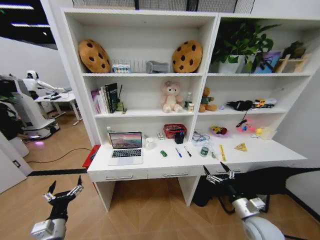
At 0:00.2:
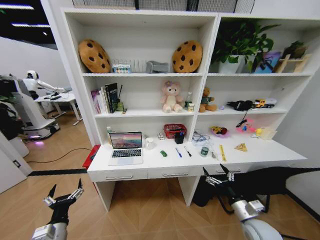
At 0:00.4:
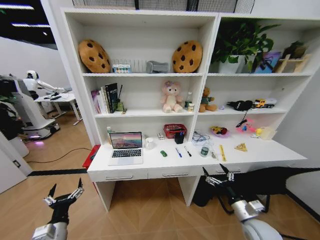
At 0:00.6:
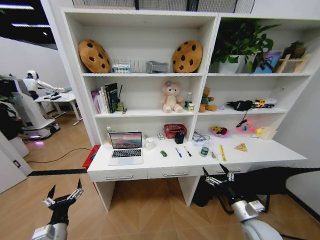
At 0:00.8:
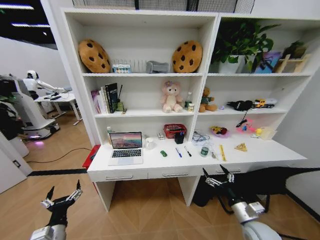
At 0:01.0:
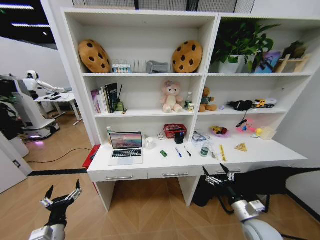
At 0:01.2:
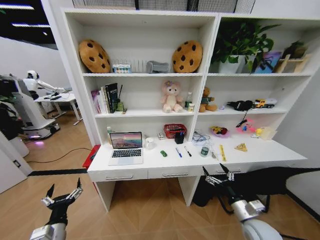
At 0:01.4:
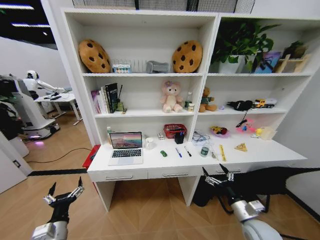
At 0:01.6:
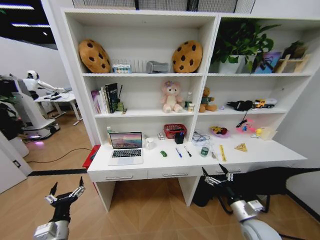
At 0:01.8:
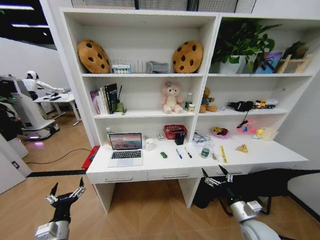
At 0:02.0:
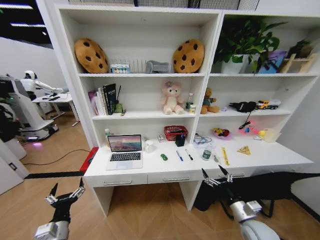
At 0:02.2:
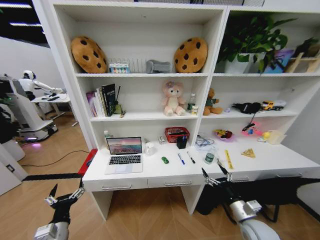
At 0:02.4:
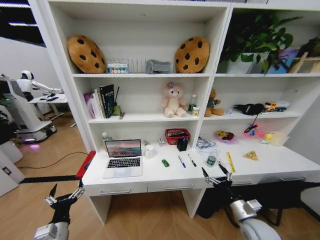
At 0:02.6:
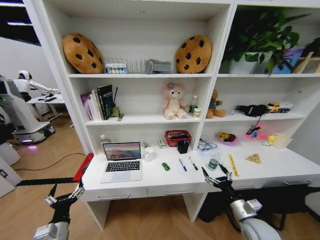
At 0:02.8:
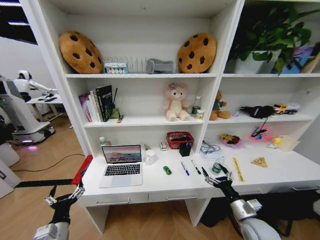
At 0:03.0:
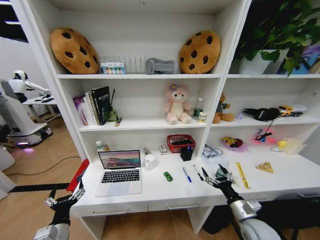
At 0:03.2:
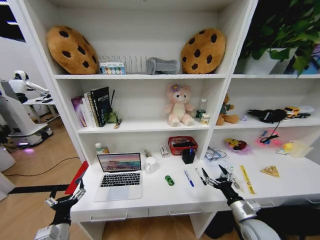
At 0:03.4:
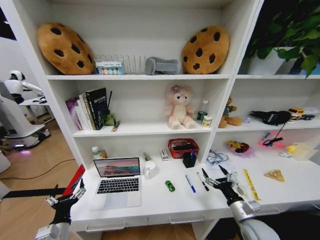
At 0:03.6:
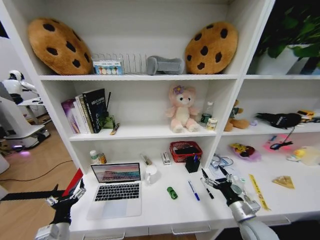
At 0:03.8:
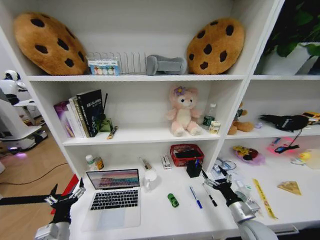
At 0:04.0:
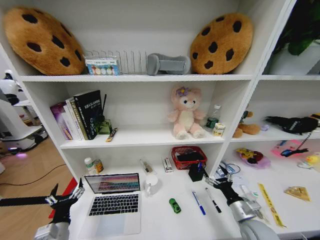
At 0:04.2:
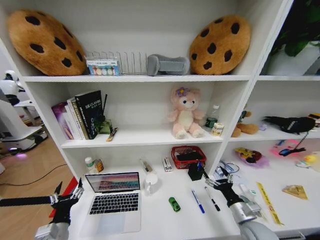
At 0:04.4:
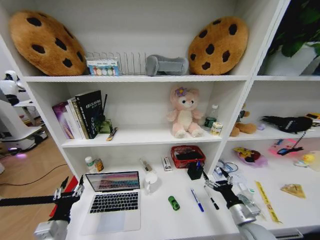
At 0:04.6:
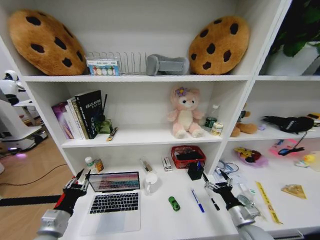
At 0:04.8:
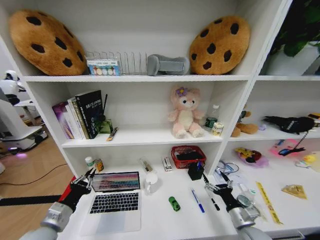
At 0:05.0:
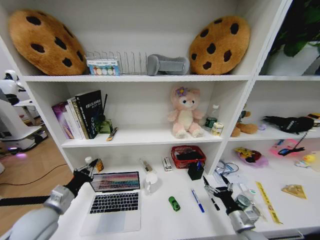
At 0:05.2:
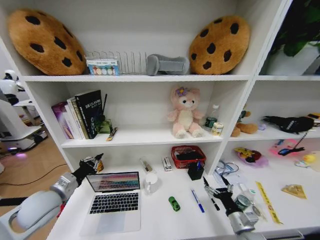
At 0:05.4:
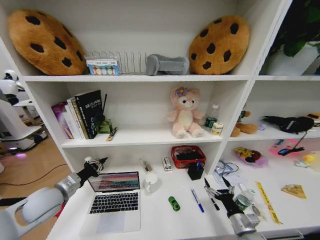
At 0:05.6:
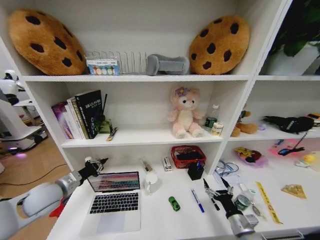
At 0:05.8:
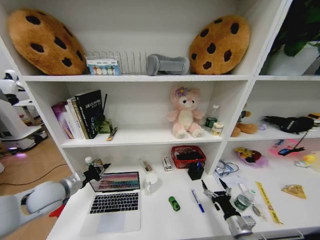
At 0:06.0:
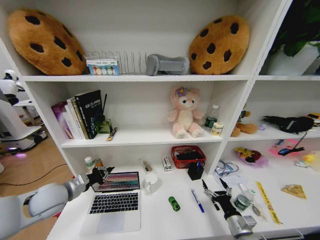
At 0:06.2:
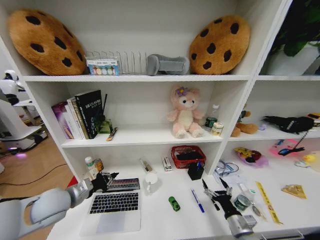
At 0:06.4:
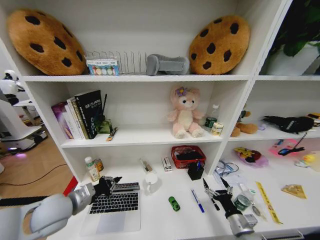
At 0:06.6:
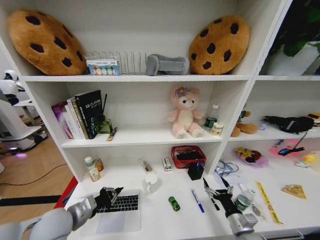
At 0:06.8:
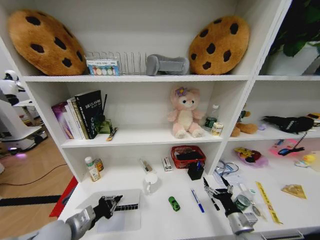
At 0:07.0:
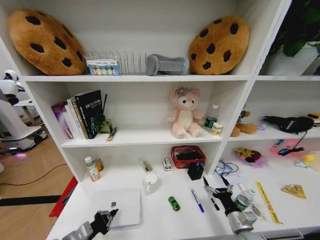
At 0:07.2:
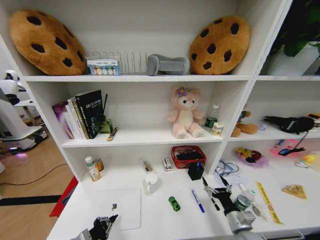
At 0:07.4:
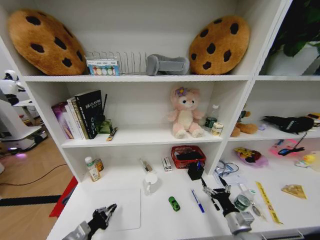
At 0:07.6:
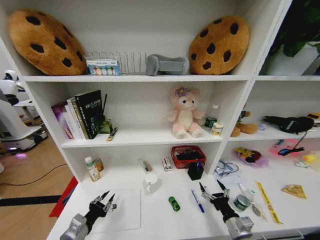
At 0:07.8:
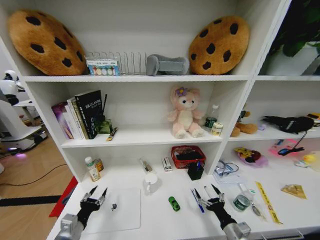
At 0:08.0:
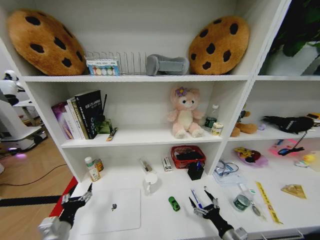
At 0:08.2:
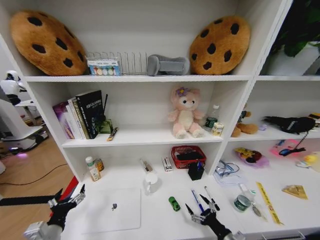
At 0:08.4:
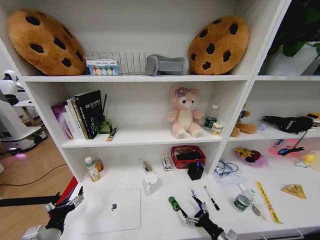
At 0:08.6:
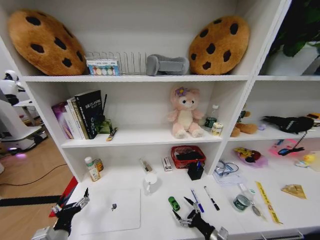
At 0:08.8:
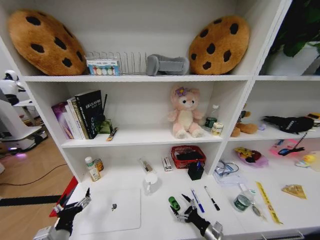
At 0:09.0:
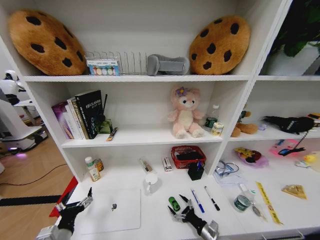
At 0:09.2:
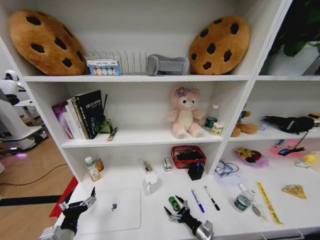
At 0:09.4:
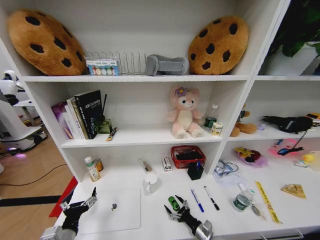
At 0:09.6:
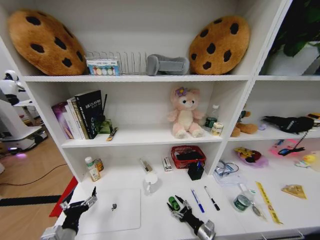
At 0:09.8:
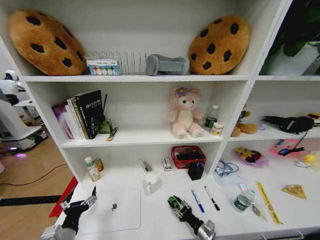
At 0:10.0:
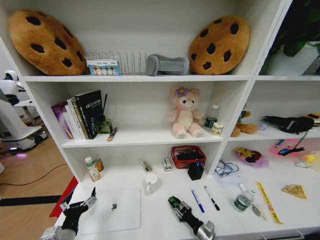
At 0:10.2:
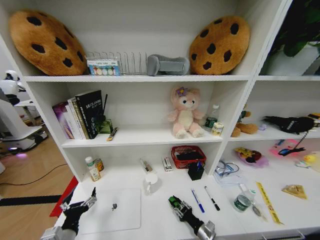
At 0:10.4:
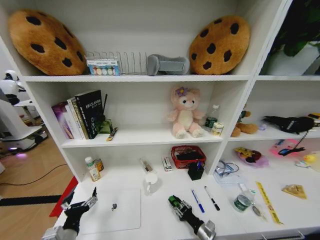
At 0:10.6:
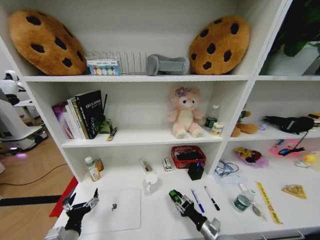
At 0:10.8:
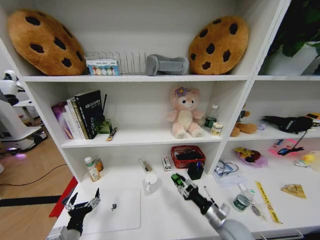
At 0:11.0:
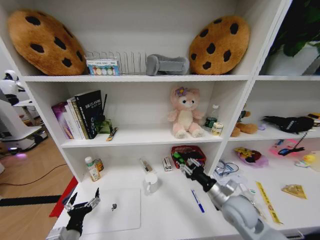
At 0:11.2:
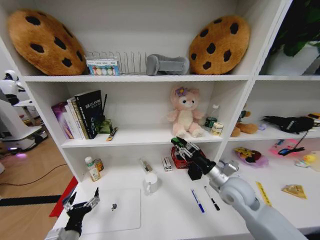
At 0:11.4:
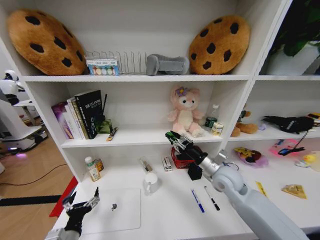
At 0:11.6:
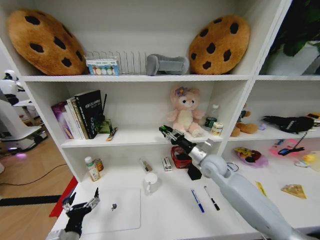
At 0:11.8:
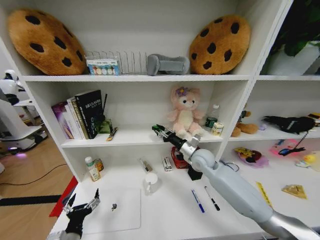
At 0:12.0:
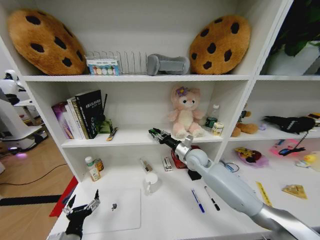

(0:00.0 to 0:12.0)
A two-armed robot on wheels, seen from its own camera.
Task of the whole recording: Organize the objects on the table.
0:03.0 - 0:04.4: The left gripper closes its fingers.
0:04.4 - 0:06.0: The left gripper goes some 15 cm forward and upward, and closes.
0:06.0 - 0:07.6: The left gripper heads backward and downward, covering roughly 15 cm.
0:07.6 - 0:09.0: The right gripper is displaced downward by approximately 10 cm. Meanwhile the left gripper opens its fingers.
0:09.0 - 0:10.4: The right gripper closes up.
0:10.4 - 0:12.0: The right gripper shifts some 40 cm forward and upward.

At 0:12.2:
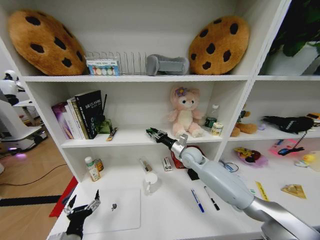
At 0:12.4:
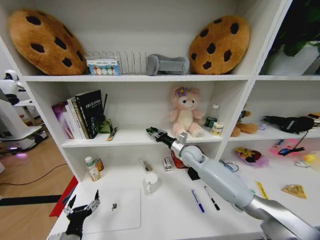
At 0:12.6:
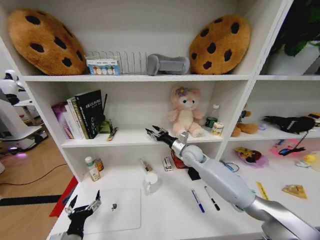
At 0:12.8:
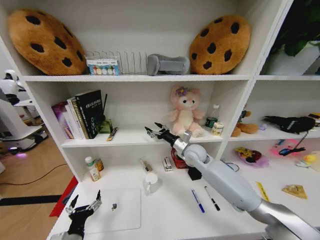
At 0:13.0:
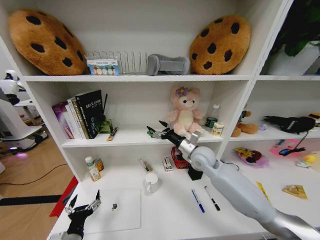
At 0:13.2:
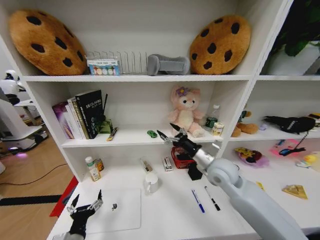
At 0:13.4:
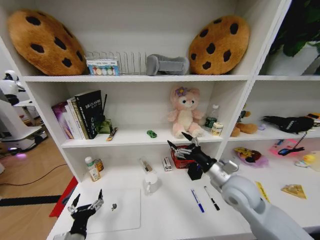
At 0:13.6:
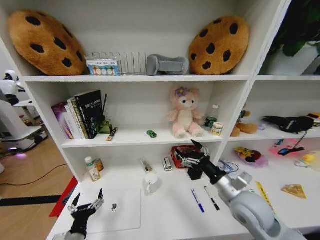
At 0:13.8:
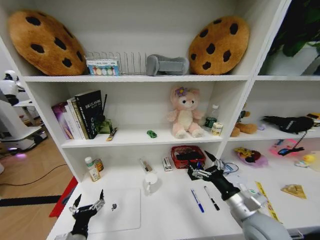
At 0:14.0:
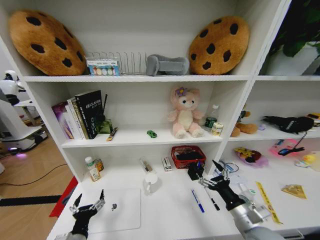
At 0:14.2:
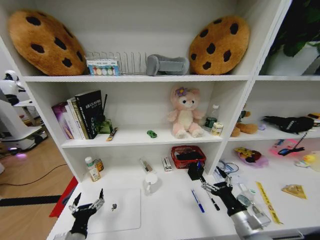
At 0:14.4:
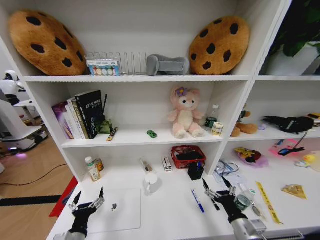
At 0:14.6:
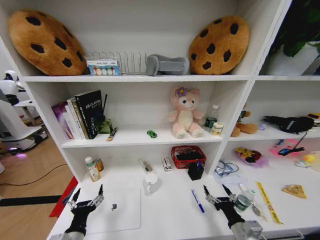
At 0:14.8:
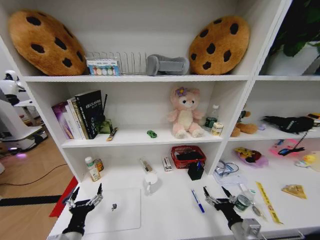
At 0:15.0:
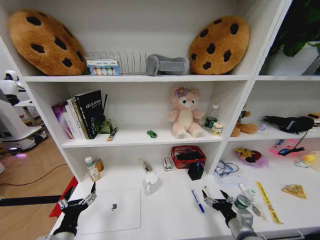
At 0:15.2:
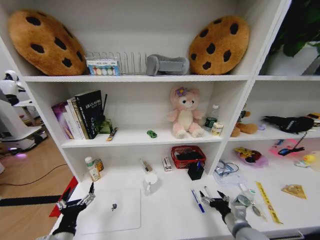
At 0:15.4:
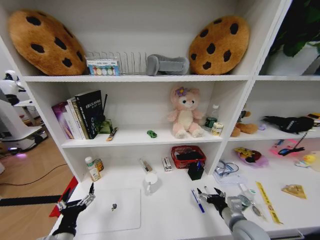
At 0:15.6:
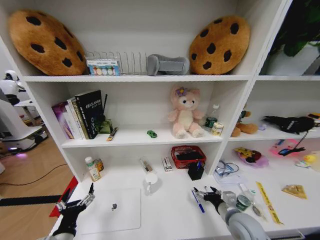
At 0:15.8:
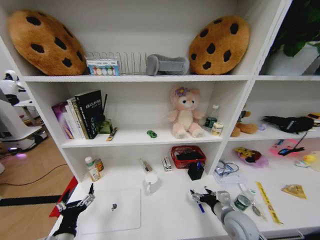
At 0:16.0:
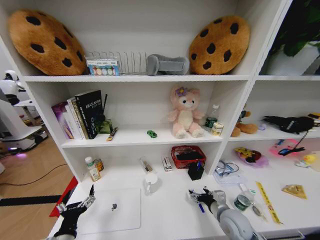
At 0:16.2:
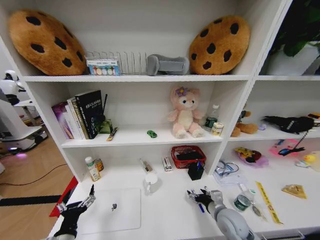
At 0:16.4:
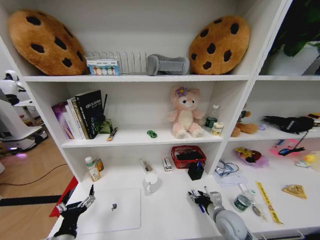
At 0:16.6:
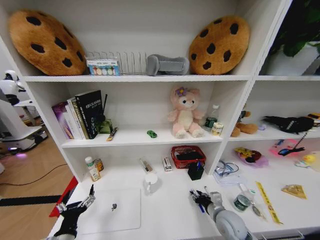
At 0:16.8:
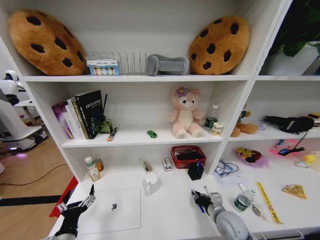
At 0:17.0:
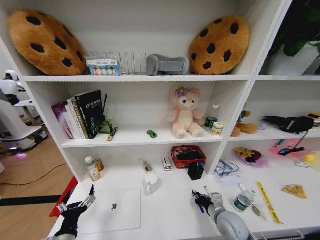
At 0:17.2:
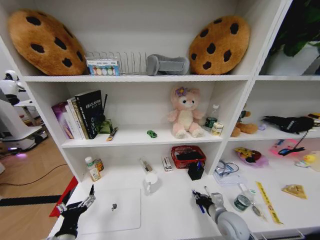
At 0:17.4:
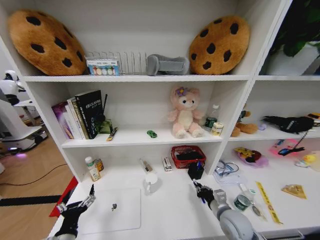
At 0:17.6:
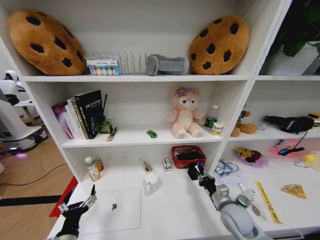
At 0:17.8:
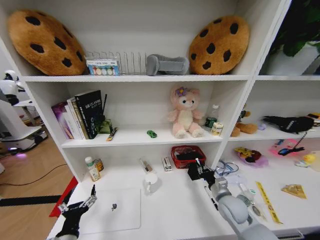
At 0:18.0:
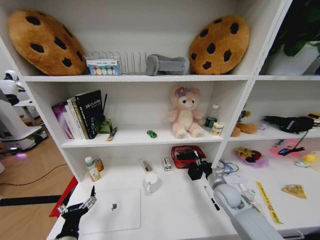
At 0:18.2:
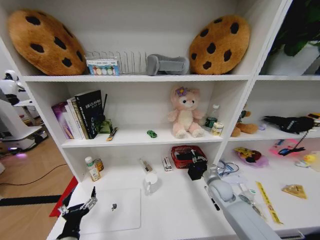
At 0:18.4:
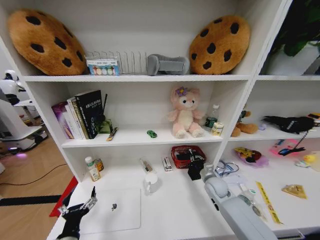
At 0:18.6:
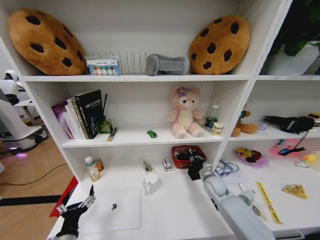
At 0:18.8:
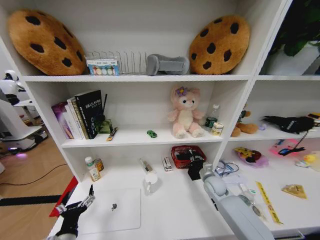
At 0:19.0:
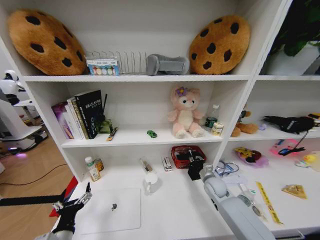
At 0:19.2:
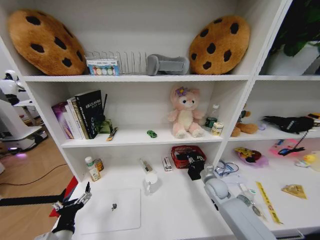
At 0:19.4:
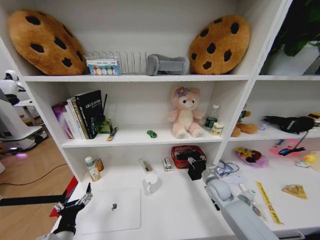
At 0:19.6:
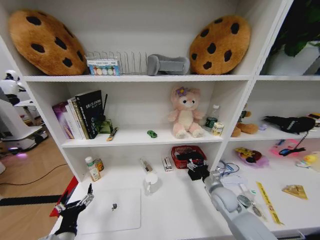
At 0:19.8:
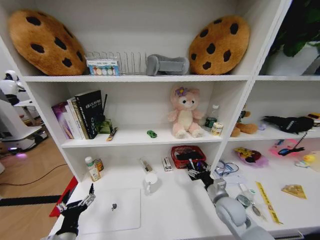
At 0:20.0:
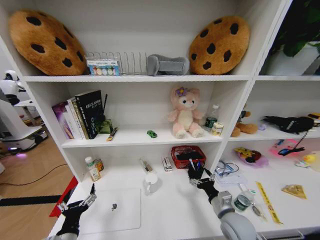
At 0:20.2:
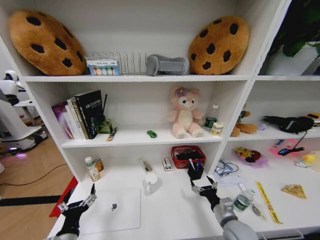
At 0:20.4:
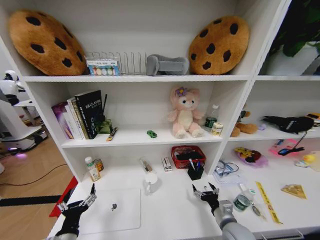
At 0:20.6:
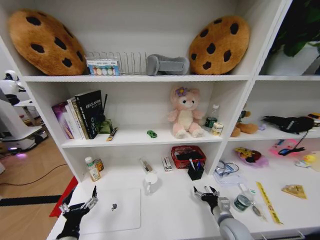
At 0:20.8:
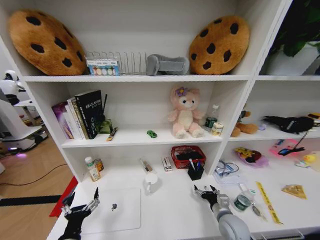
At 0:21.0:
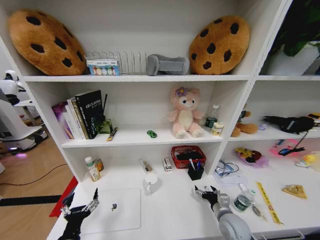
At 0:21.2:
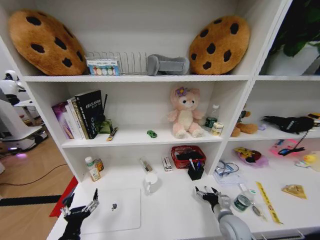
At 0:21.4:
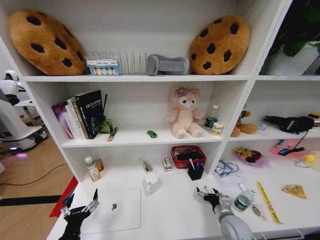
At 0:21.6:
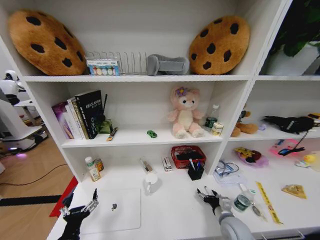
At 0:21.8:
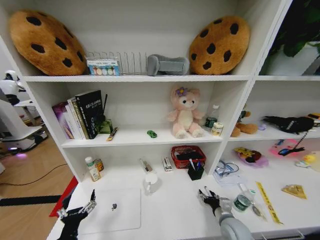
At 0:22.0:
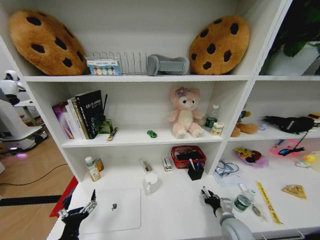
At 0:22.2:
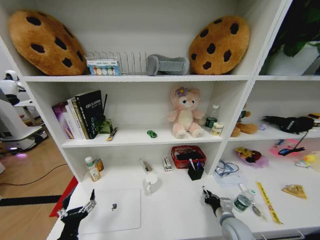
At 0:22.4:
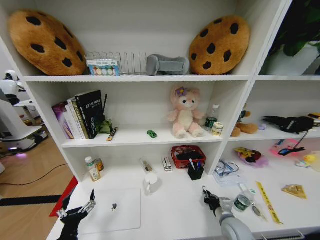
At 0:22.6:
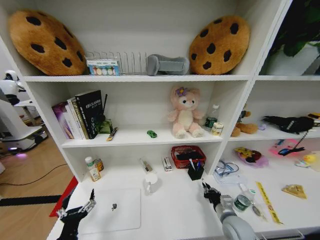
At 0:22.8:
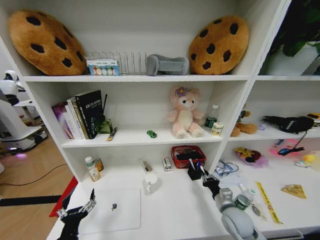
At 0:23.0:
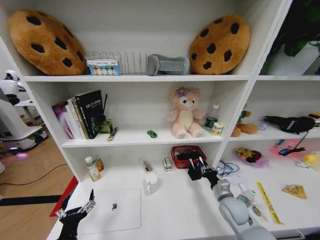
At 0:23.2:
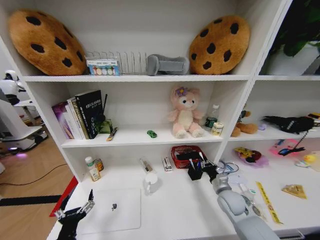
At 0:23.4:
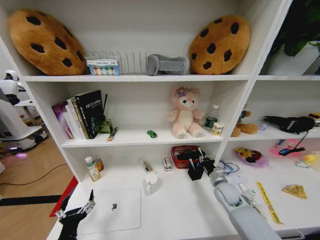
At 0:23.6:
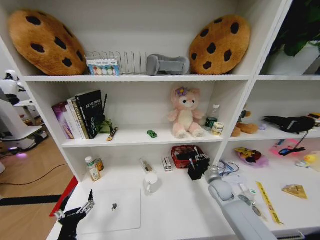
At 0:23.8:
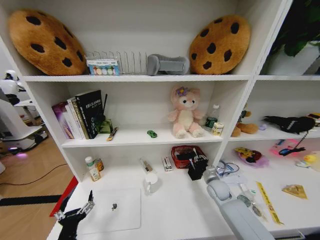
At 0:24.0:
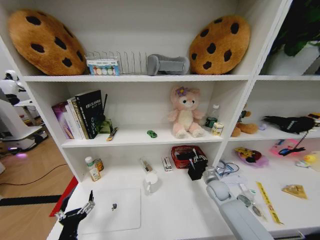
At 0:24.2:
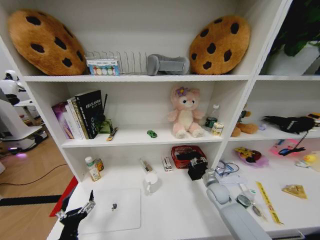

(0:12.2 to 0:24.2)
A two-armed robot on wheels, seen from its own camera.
Task of the whole recording: Organize the objects on the table.
0:12.2 - 0:13.8: The right gripper moves backward and to the right, roughly 30 cm, and opens.
0:13.8 - 0:15.2: The right gripper goes approximately 10 cm downward.
0:15.2 - 0:16.6: The right gripper goes some 5 cm forward, and closes up.
0:16.6 - 0:18.2: The right gripper moves forward, some 10 cm, and closes its fingers.
0:18.2 - 0:19.8: The right gripper is displaced backward by about 5 cm, and opens.
0:19.8 - 0:21.2: The right gripper heads downward, covering roughly 5 cm.
0:21.2 - 0:22.6: The right gripper closes its fingers.
0:22.6 - 0:24.2: The right gripper travels forward by some 15 cm.
